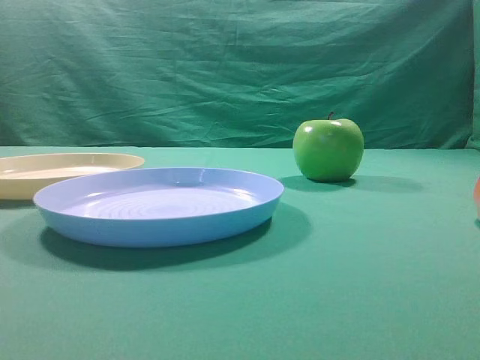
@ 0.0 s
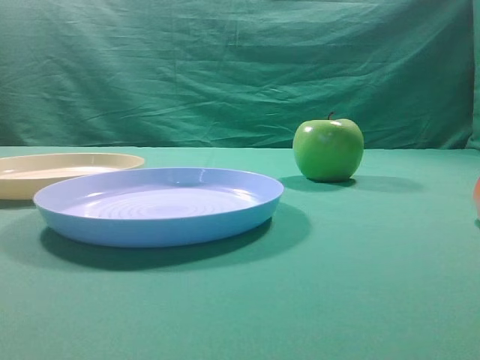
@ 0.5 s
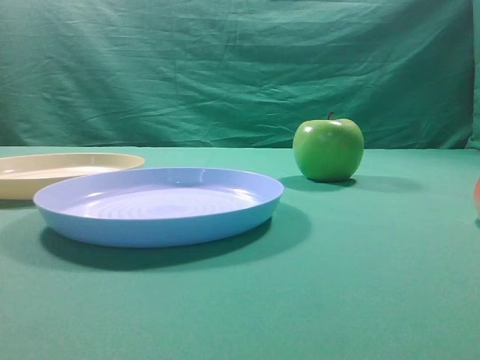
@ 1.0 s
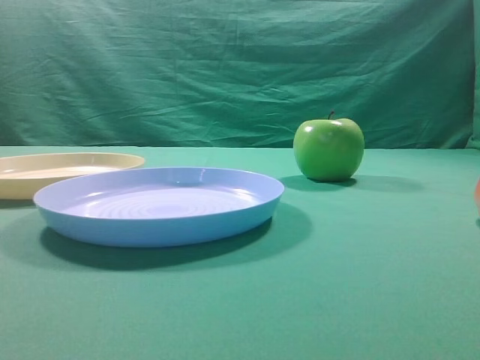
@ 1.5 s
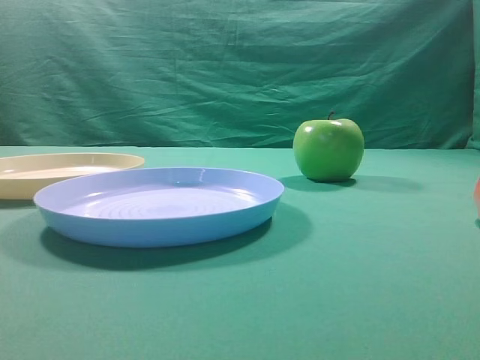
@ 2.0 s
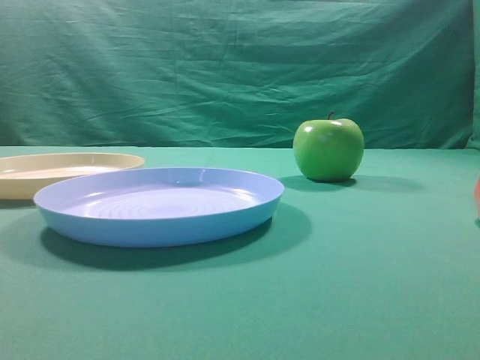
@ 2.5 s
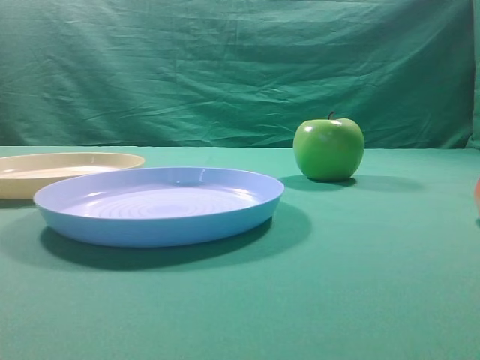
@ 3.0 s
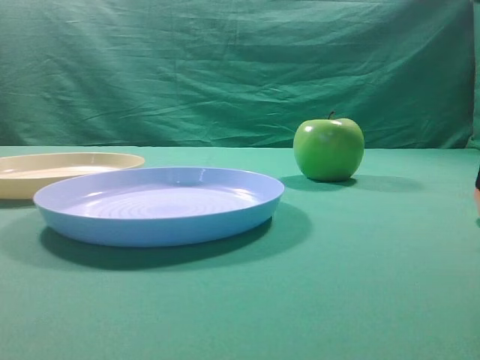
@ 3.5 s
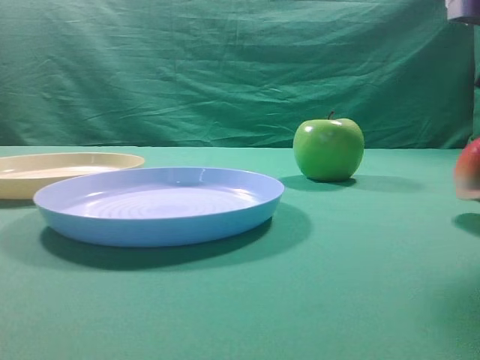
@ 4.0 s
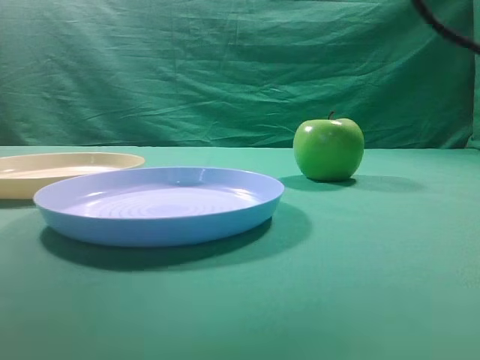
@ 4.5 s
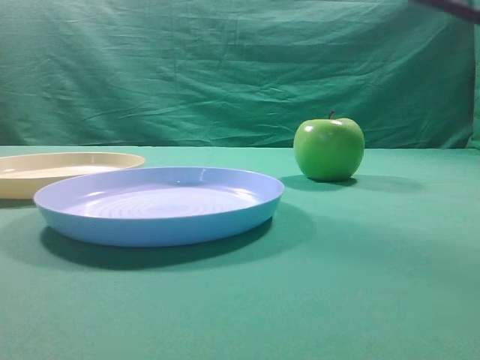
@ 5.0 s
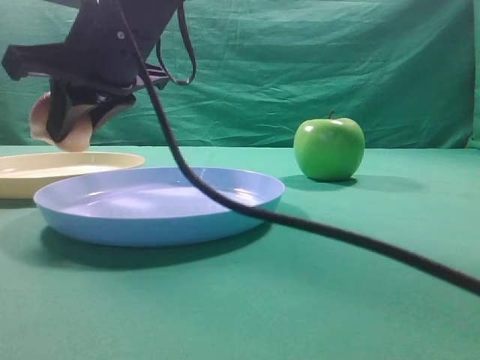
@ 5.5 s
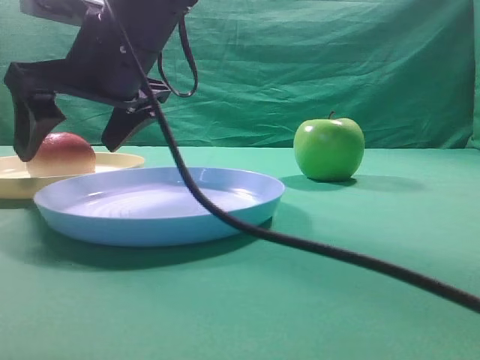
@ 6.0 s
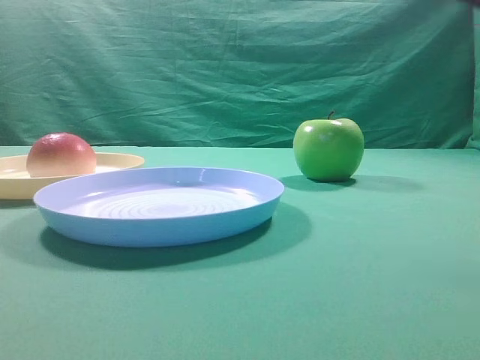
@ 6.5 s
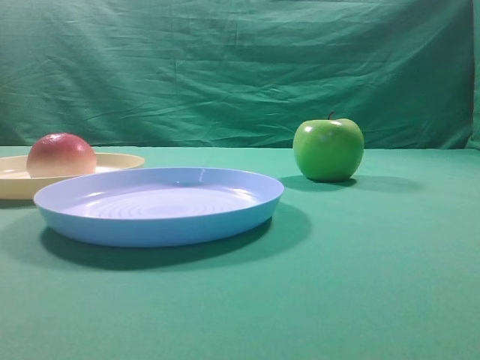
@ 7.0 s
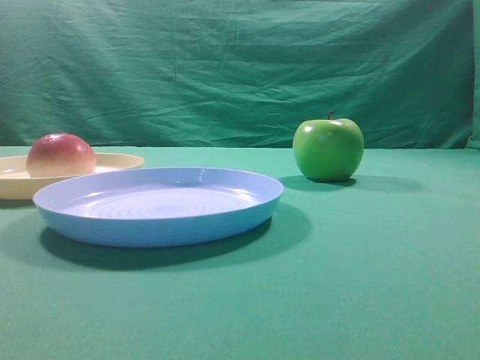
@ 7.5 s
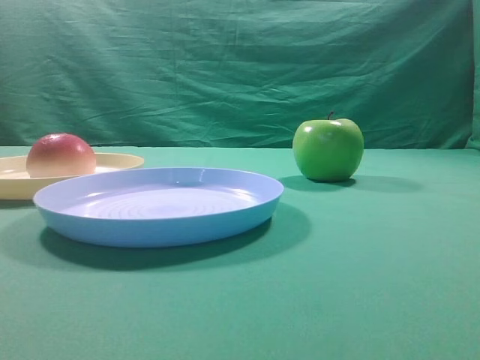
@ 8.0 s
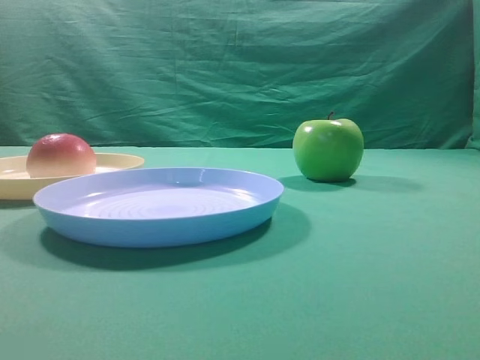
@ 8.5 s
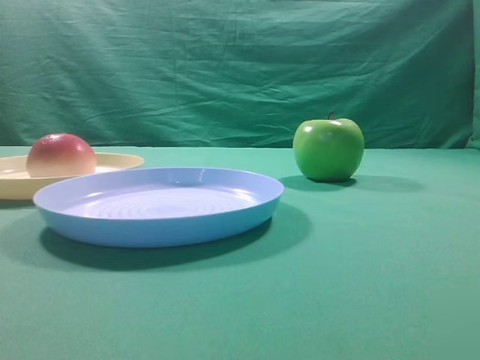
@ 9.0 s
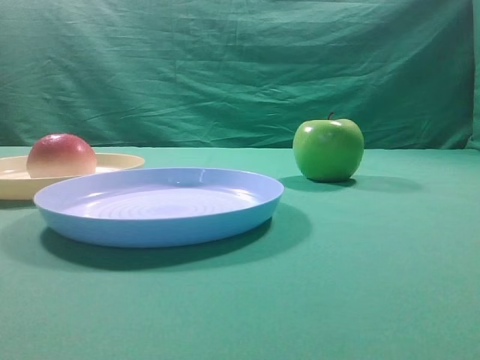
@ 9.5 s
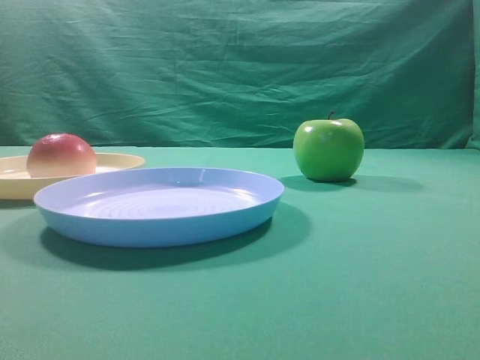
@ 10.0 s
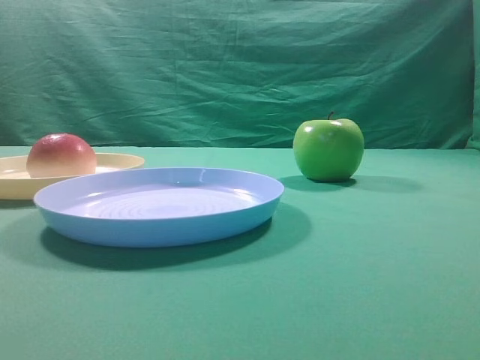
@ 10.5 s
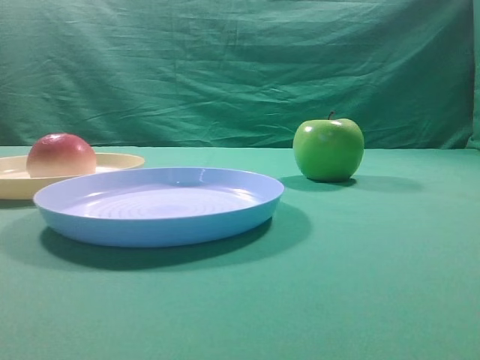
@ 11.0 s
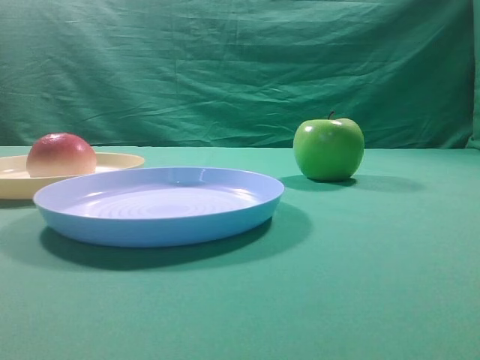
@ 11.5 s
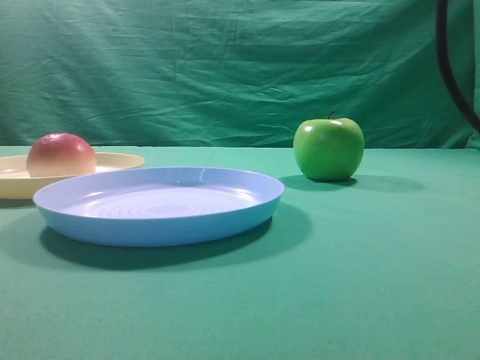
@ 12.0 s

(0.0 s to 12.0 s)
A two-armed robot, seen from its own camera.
Step, 4.5 s - 6.0 s: Place the picked object on the yellow plate.

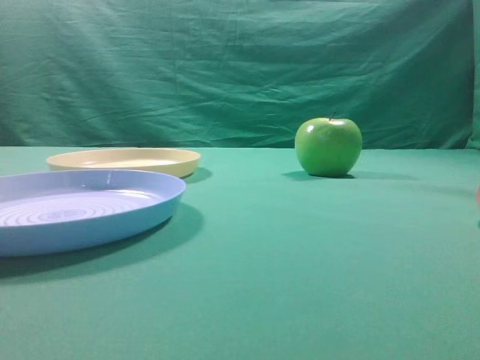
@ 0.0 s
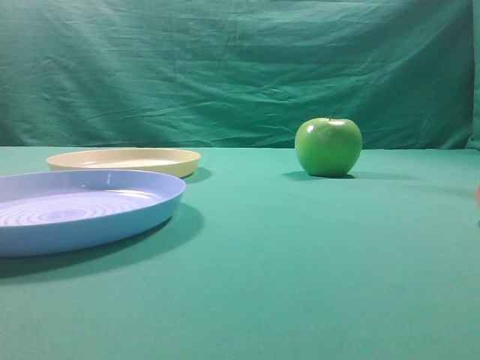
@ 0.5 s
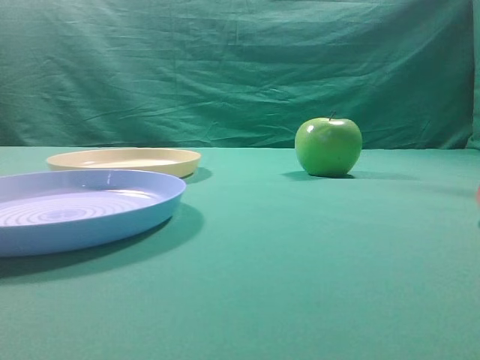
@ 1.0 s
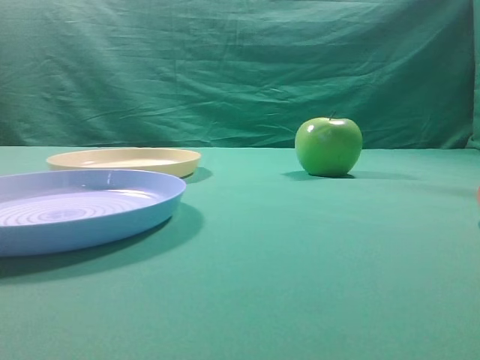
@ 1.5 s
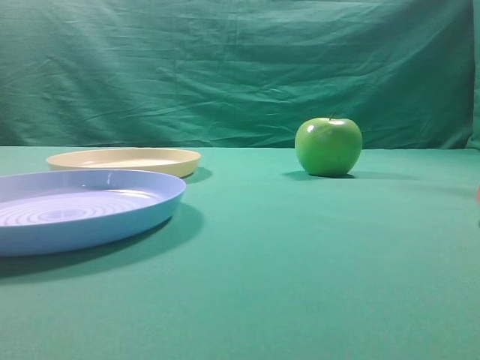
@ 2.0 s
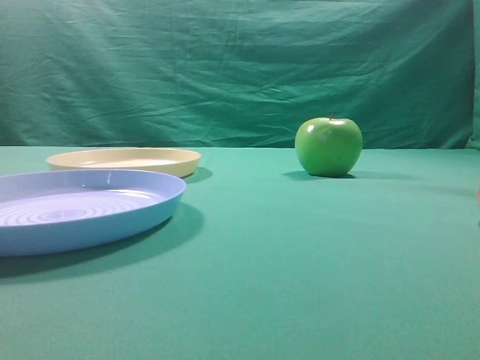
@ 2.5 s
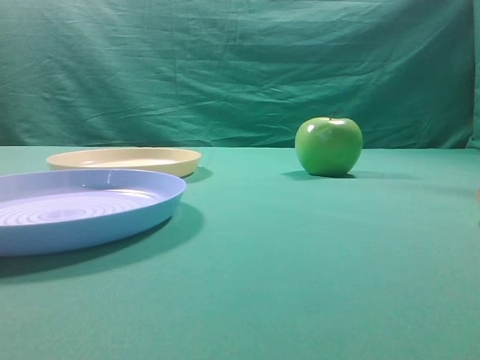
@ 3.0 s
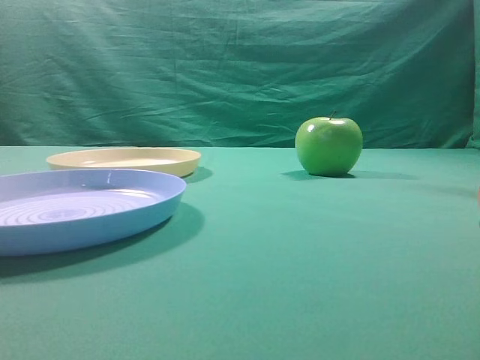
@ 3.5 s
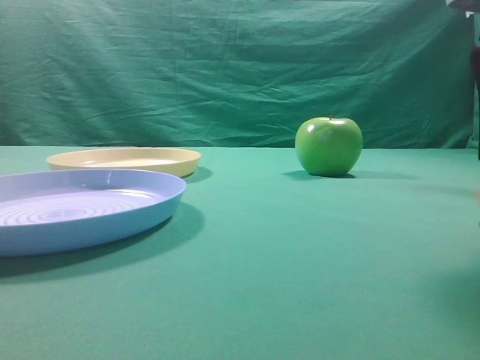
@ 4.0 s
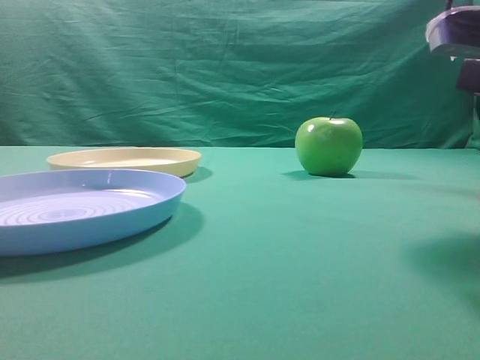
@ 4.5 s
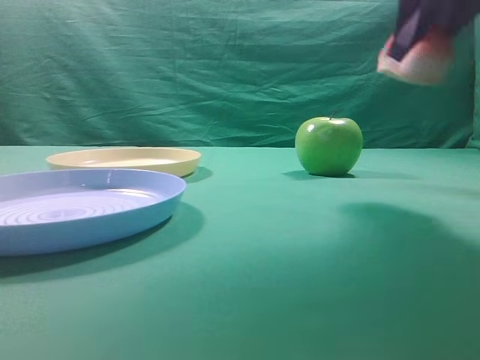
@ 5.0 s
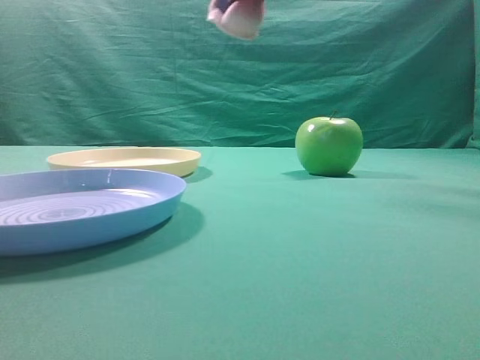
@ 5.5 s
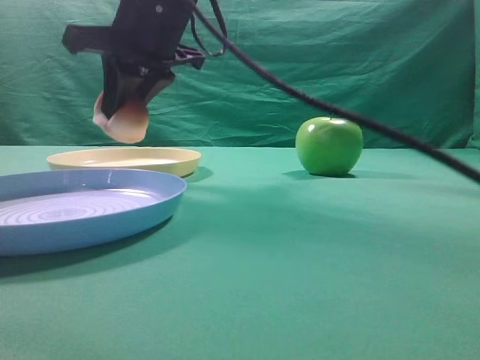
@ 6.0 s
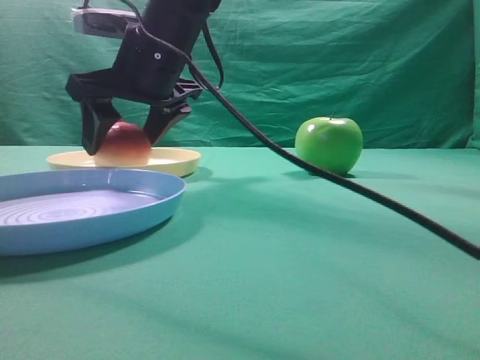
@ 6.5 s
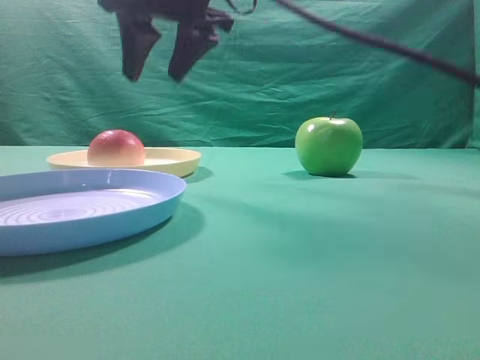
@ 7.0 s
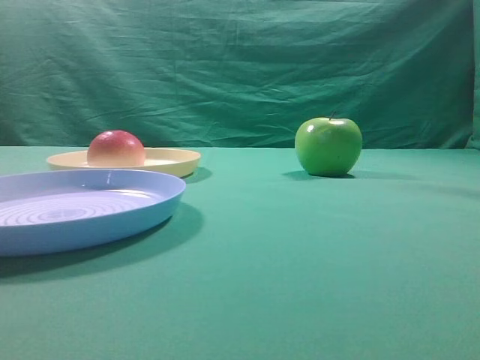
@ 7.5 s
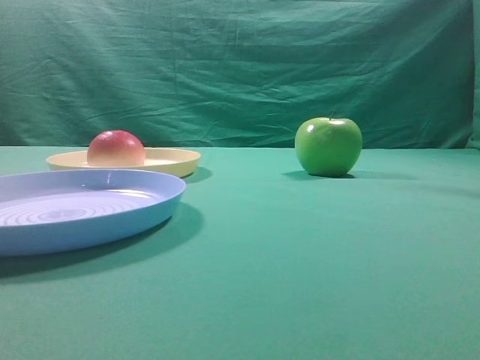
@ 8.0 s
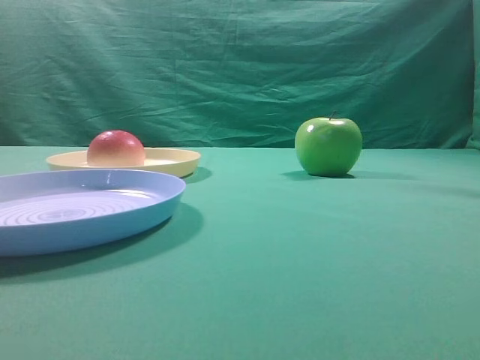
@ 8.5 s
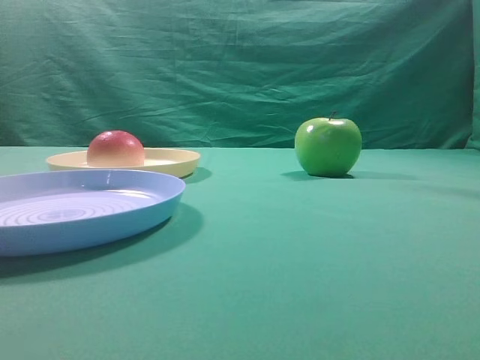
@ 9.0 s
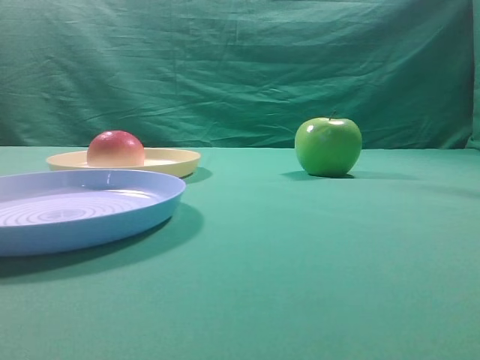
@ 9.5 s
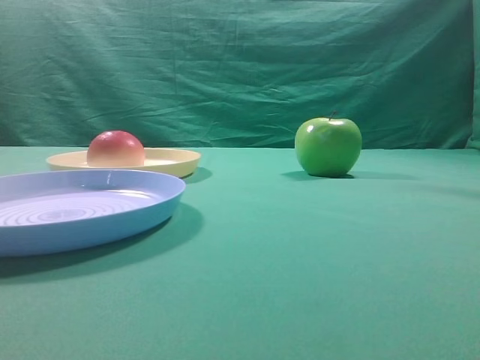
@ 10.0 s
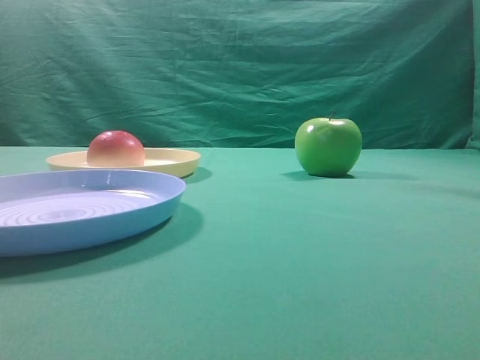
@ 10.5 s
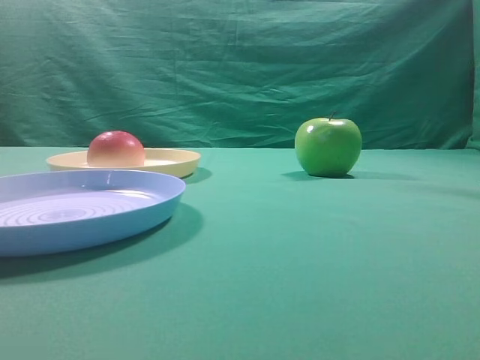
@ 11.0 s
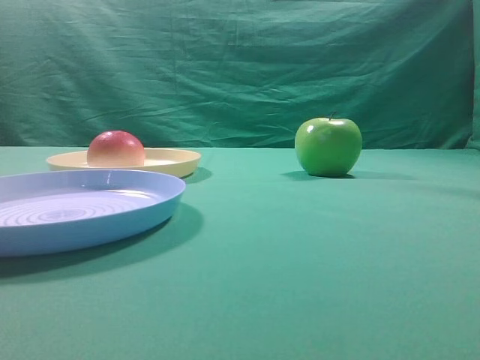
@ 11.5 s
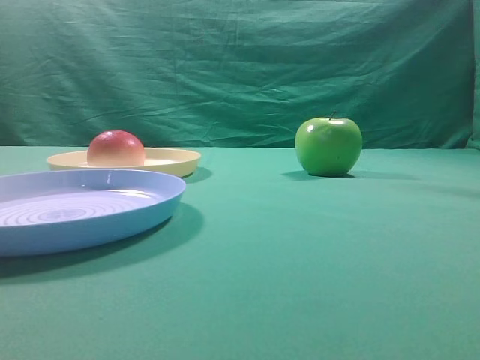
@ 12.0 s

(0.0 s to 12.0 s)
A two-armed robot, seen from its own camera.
Step, 5.0 s - 6.5 s: Place the picked object on the yellow plate.
